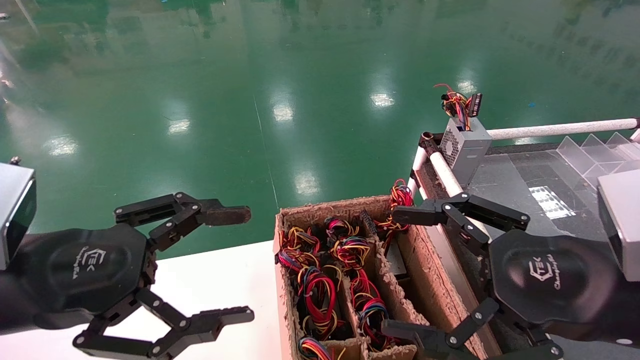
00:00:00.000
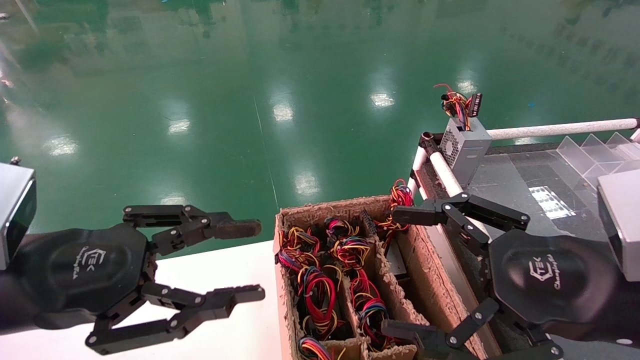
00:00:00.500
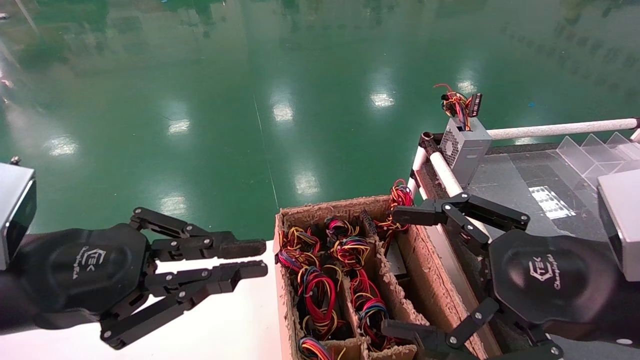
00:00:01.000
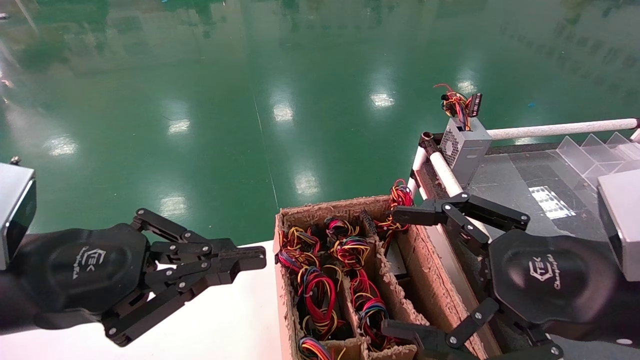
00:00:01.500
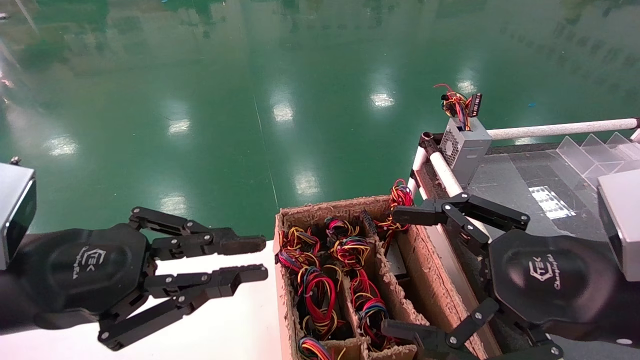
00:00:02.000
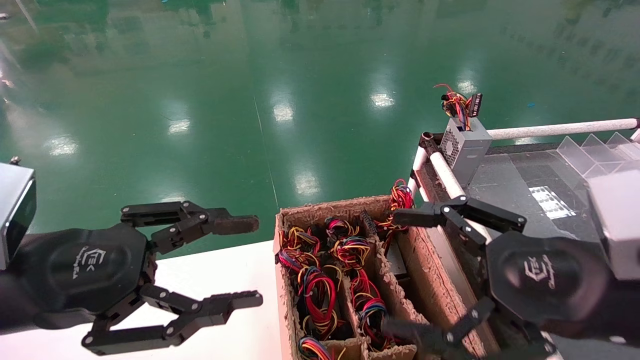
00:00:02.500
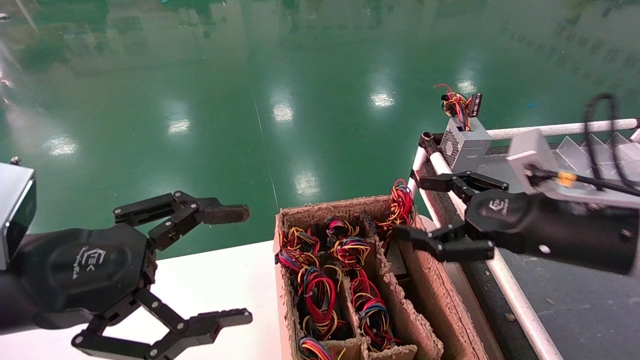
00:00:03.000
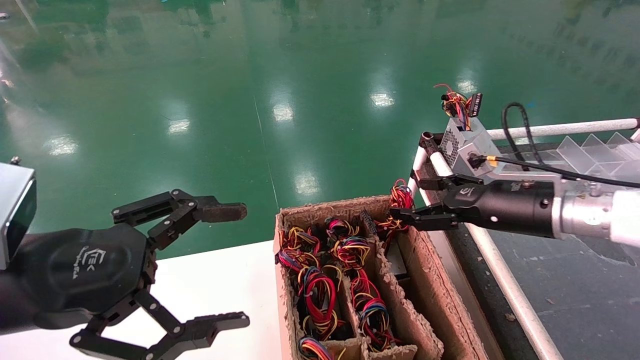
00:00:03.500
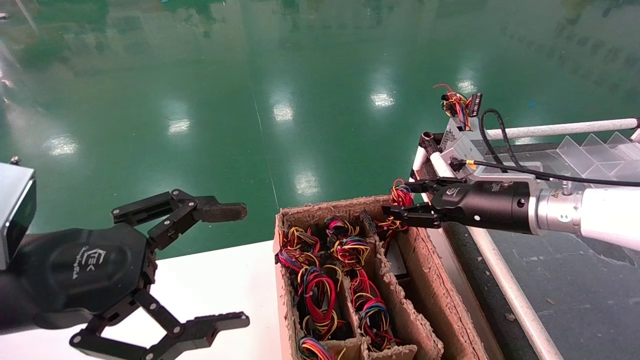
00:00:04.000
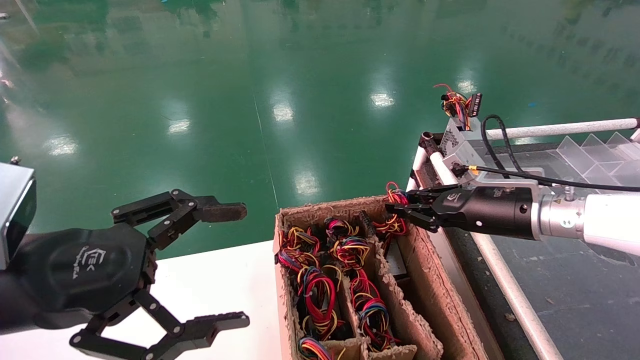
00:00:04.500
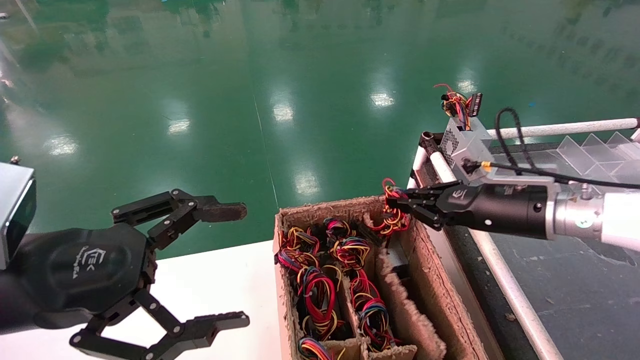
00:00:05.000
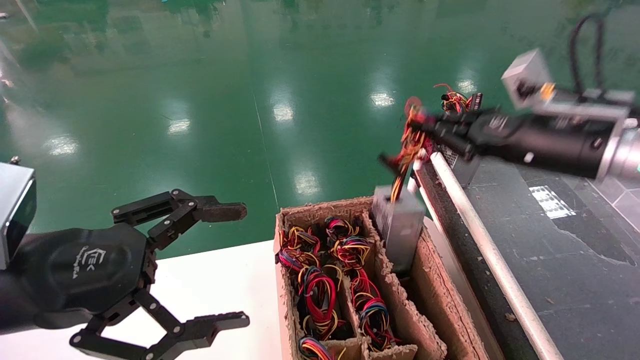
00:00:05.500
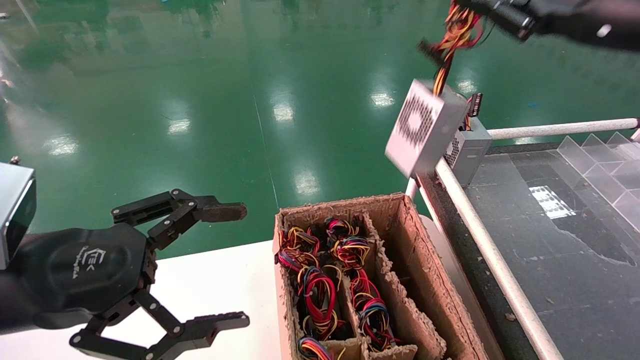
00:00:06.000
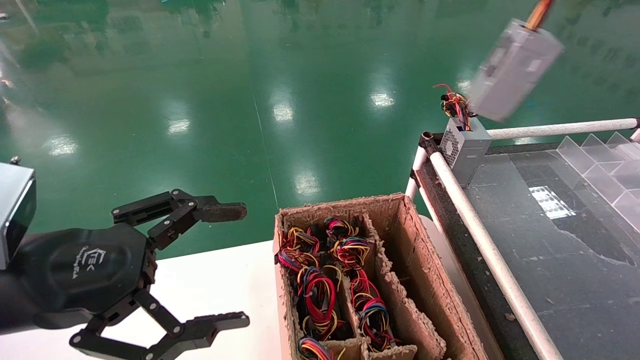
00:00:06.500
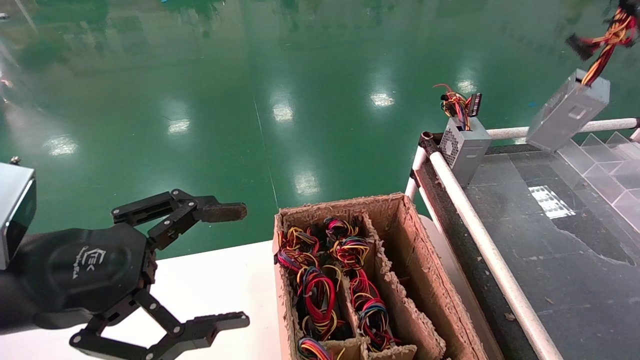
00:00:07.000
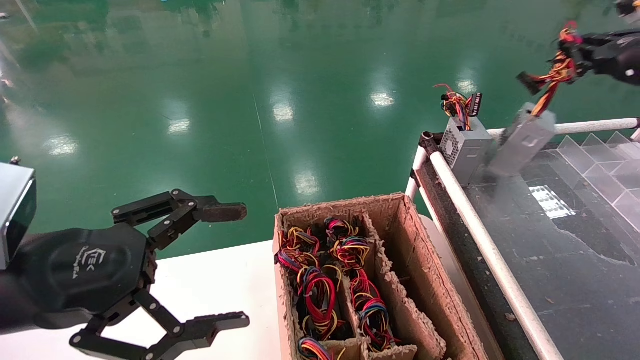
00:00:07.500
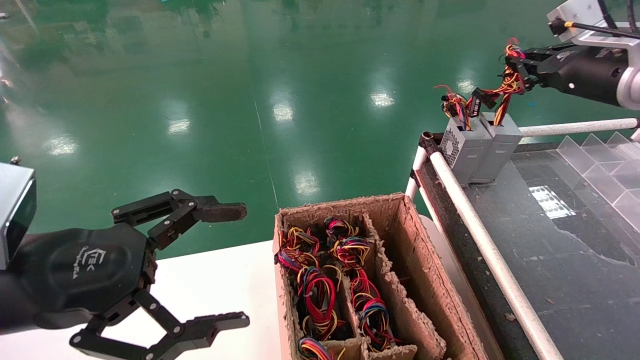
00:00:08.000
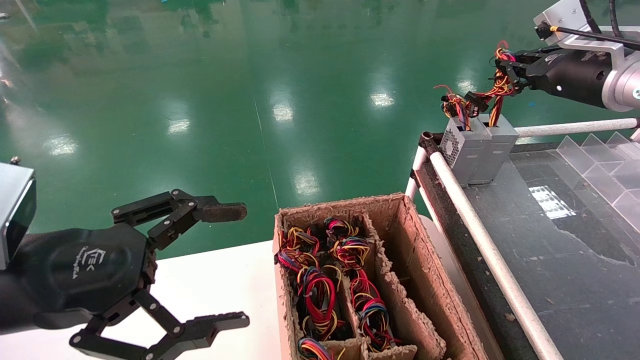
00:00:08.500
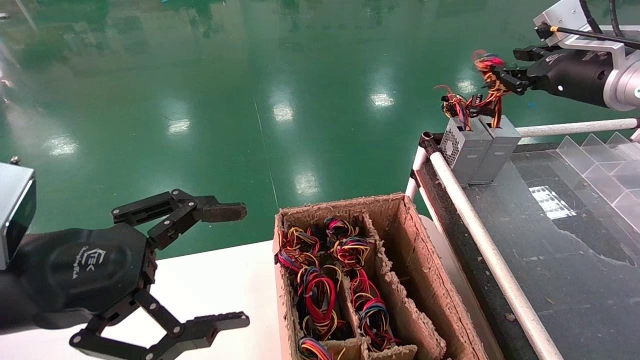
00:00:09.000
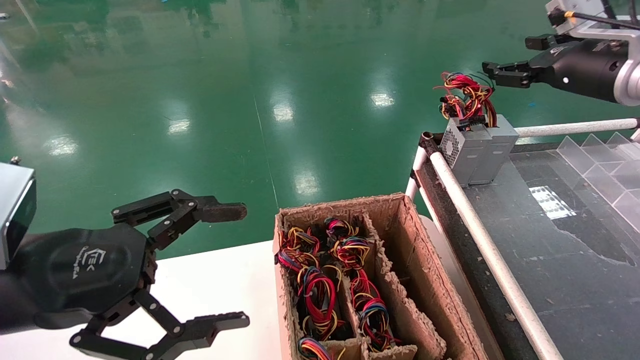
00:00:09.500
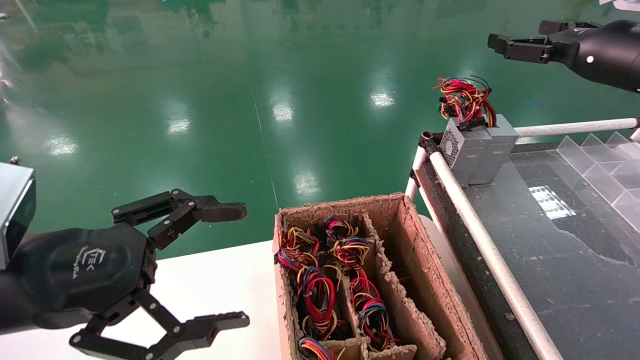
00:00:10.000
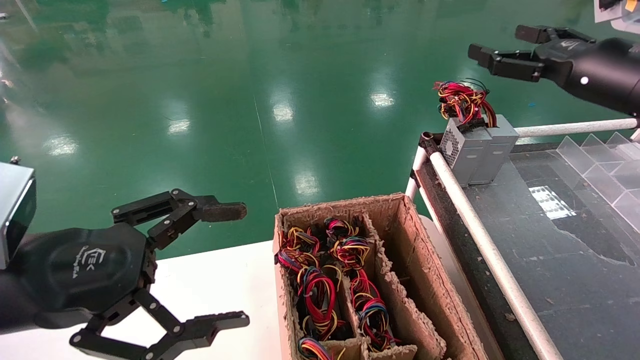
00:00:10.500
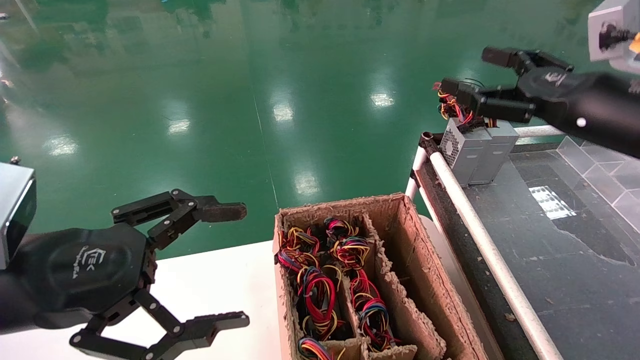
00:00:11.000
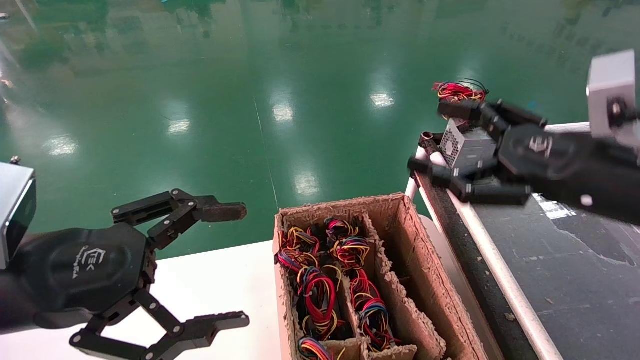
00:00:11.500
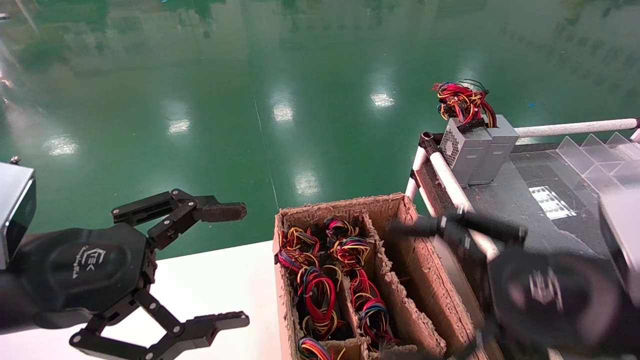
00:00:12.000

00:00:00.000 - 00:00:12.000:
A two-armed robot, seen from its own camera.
Step, 00:00:01.500 - 00:00:04.500: Grab and lift the power supply from the large box.
Step, 00:00:05.000 - 00:00:08.500: Place the power supply on the operating table.
00:00:00.000 - 00:00:02.000: The left gripper closes its fingers.
00:00:02.000 - 00:00:04.000: The right gripper moves forward, approximately 20 cm, while the left gripper opens.
00:00:04.000 - 00:00:06.000: The right gripper shifts about 25 cm upward, and closes.
00:00:06.000 - 00:00:08.000: The right gripper goes roughly 10 cm forward and downward, and travels to the right and back again, some 15 cm each way.
00:00:08.000 - 00:00:10.000: The right gripper opens up.
00:00:10.000 - 00:00:12.000: The right gripper shifts about 30 cm backward, downward and to the left.

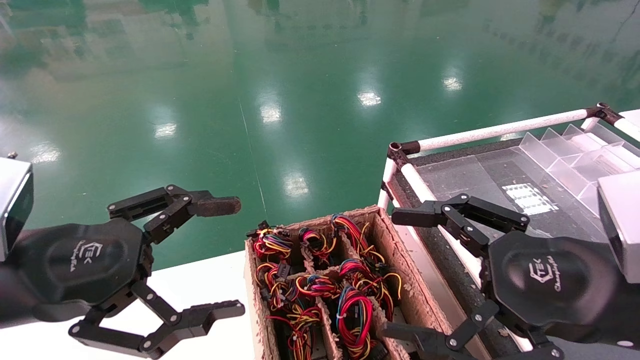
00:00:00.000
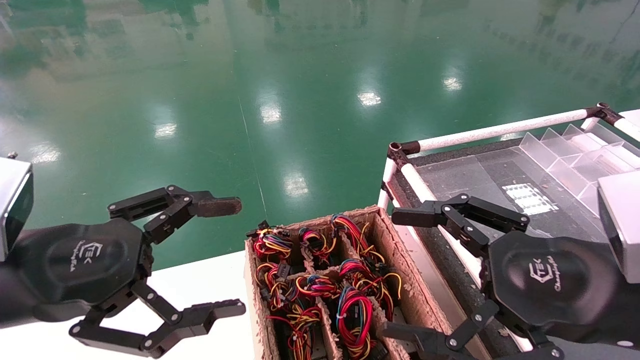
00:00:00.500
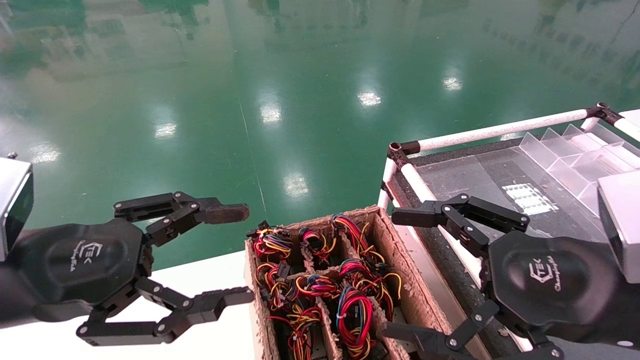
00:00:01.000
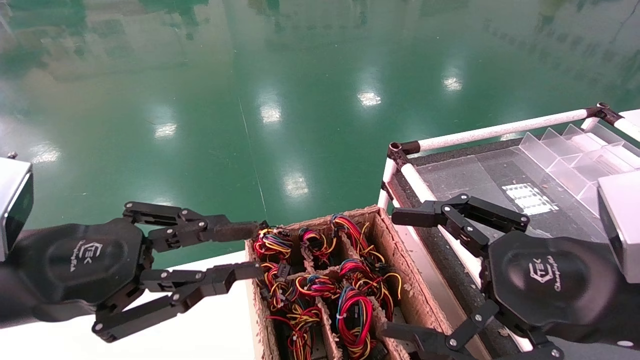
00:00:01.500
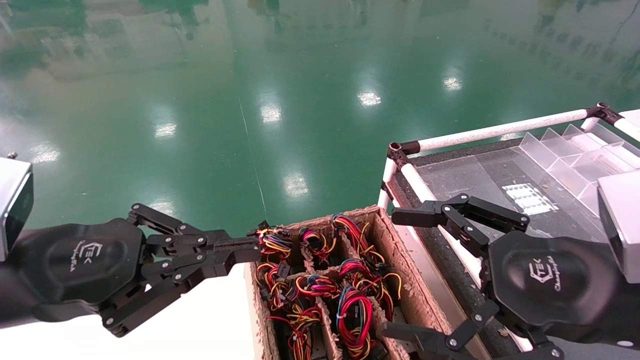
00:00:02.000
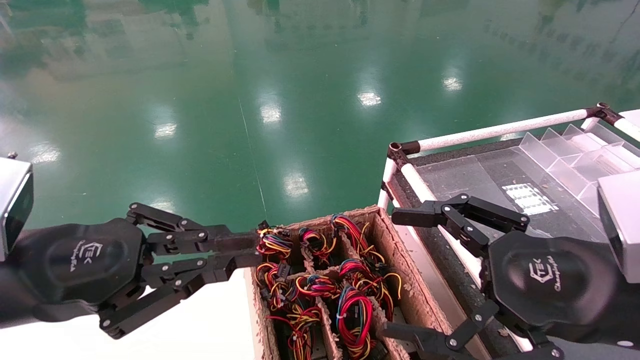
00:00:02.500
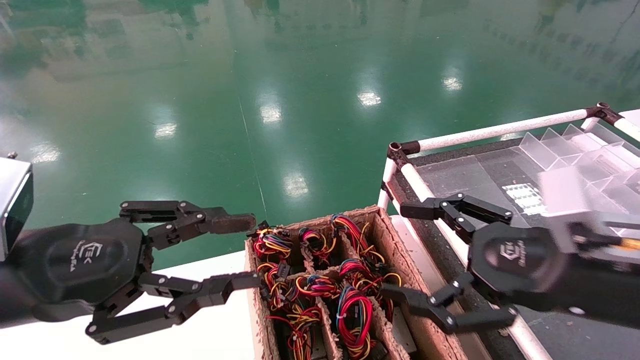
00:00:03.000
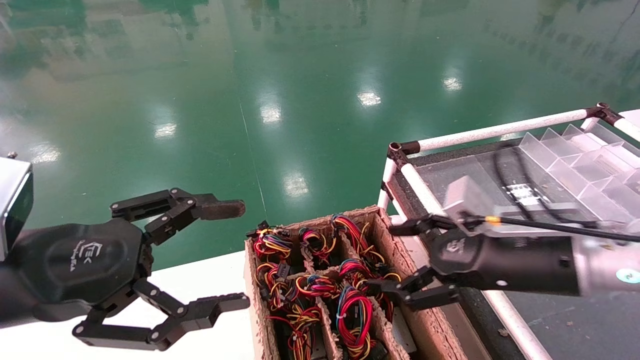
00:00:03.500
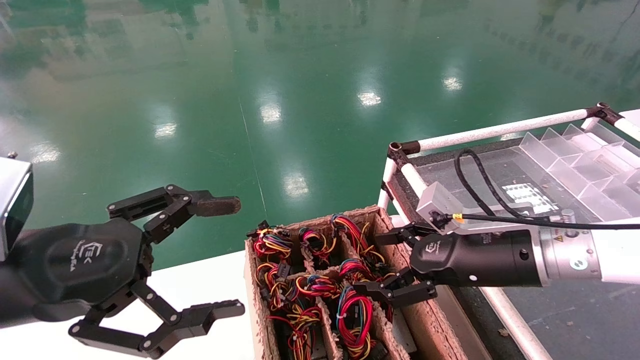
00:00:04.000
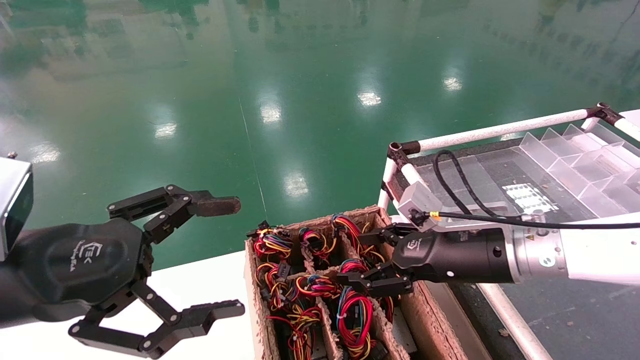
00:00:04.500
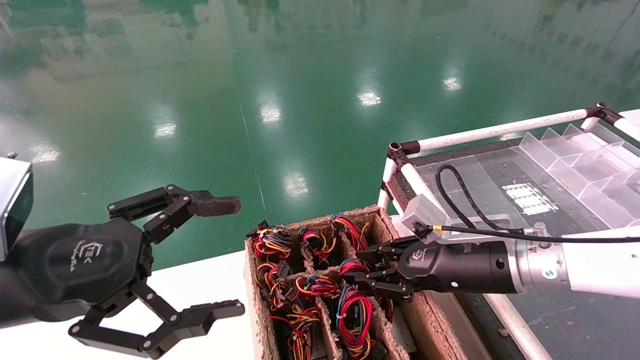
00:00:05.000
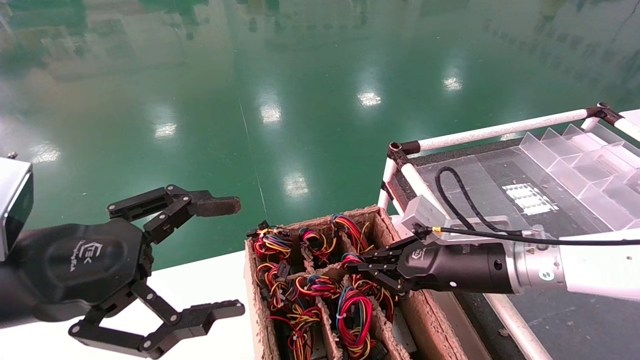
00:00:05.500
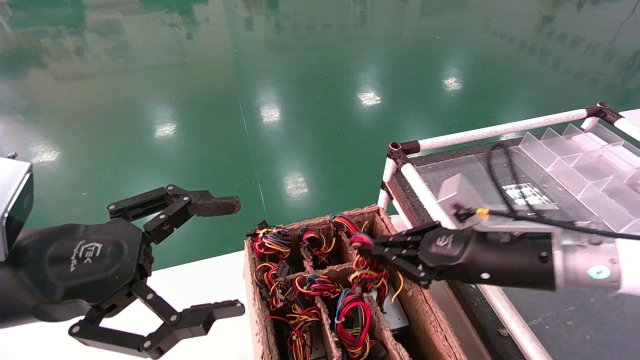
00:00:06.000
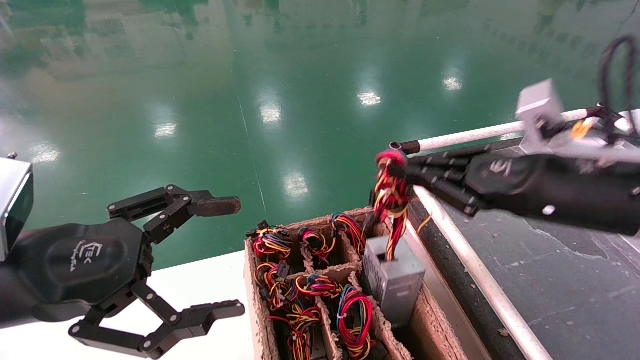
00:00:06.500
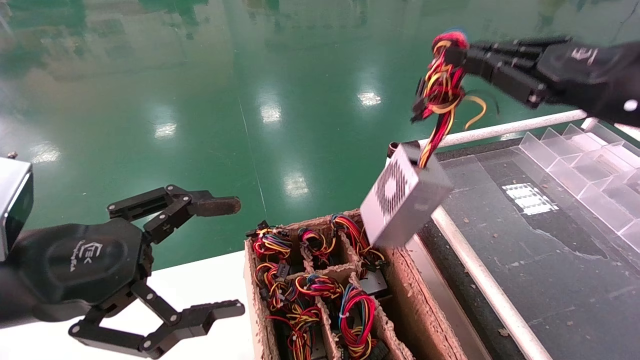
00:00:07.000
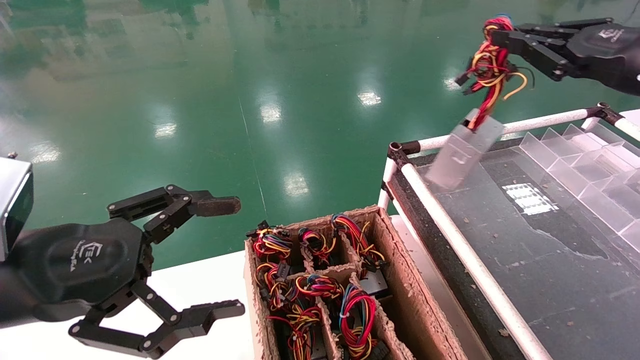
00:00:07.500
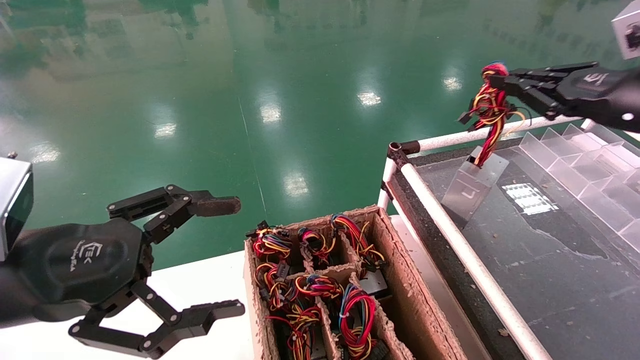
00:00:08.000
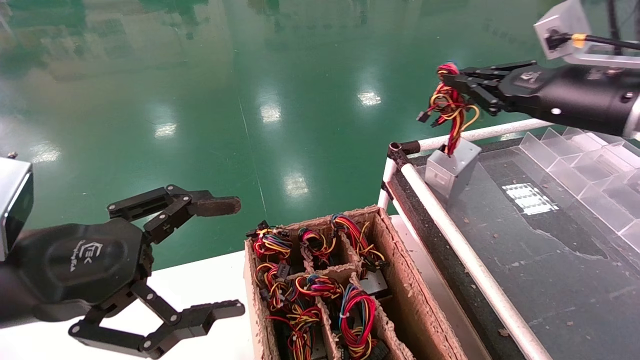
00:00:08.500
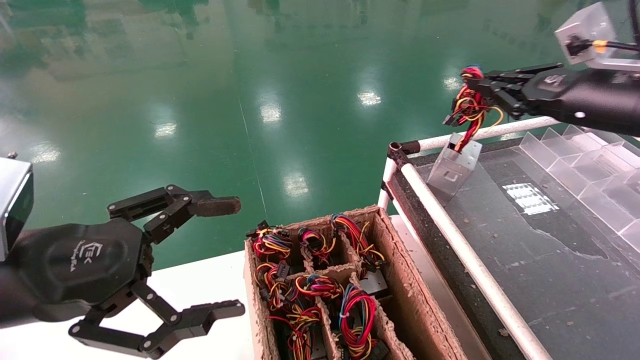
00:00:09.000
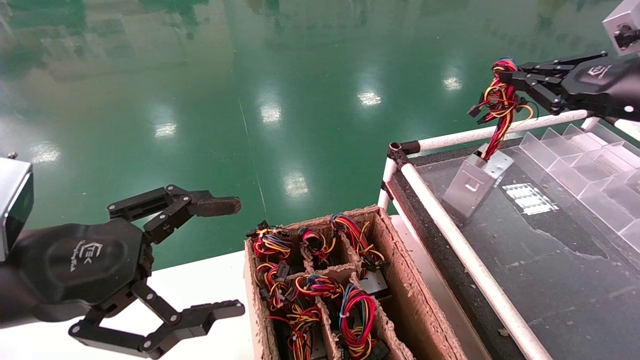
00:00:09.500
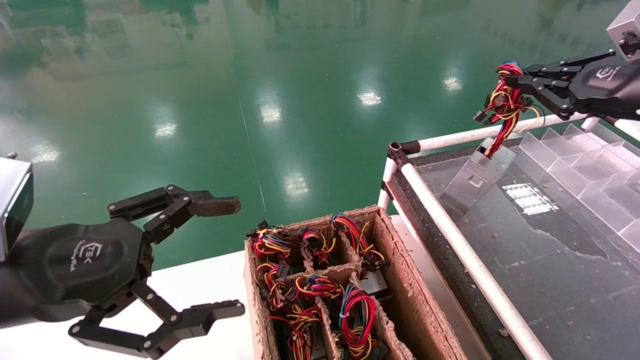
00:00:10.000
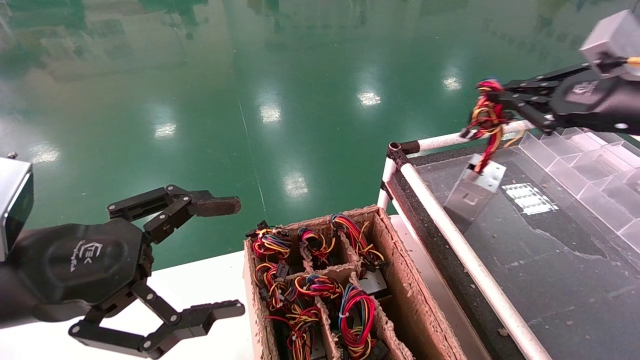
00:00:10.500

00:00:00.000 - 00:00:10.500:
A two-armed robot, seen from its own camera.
Step, 00:00:02.500 - 00:00:05.500: Grab and lift the power supply from the large box.
00:00:00.000 - 00:00:02.000: The left gripper closes its fingers.
00:00:02.000 - 00:00:04.000: The right gripper moves forward, about 15 cm; the left gripper opens up.
00:00:04.000 - 00:00:06.500: The right gripper is displaced upward and to the right by some 10 cm, and closes its fingers.
00:00:06.500 - 00:00:08.500: The right gripper heads forward, upward and to the right, covering roughly 10 cm.
